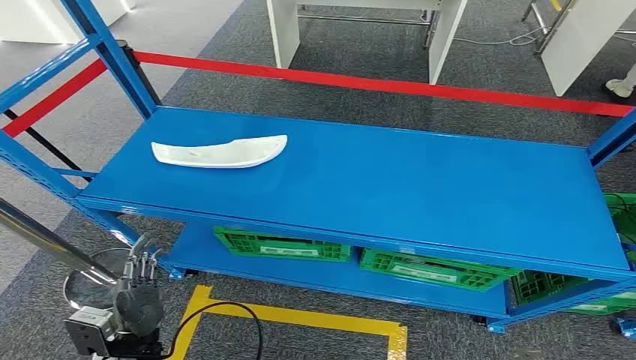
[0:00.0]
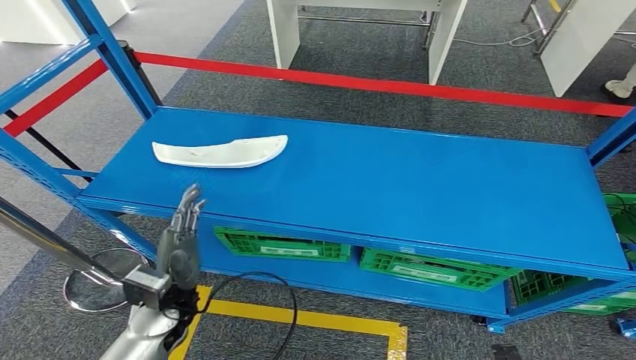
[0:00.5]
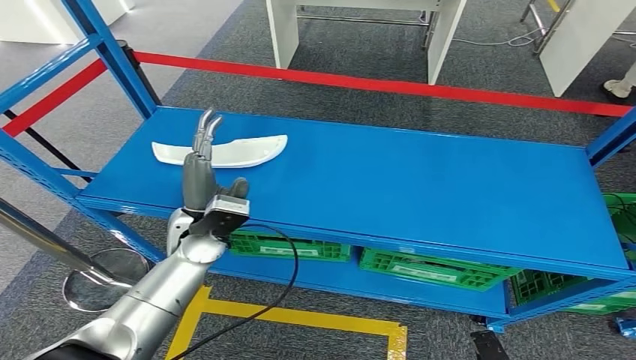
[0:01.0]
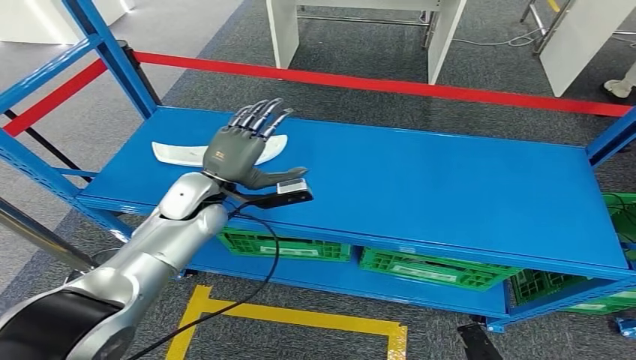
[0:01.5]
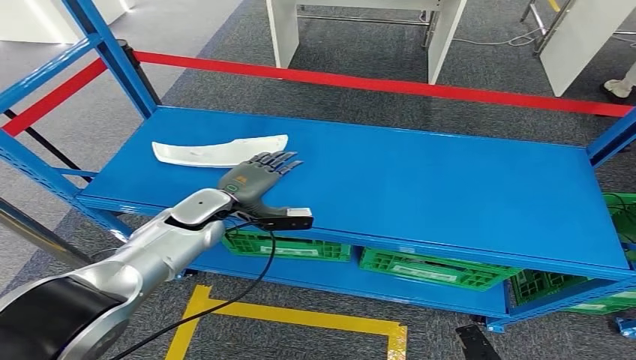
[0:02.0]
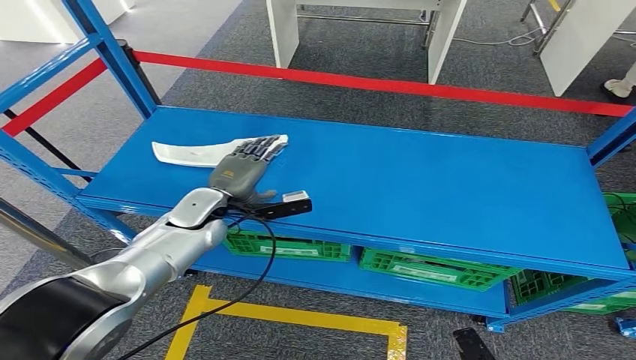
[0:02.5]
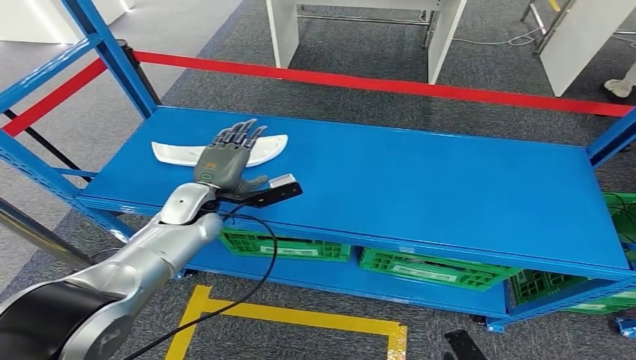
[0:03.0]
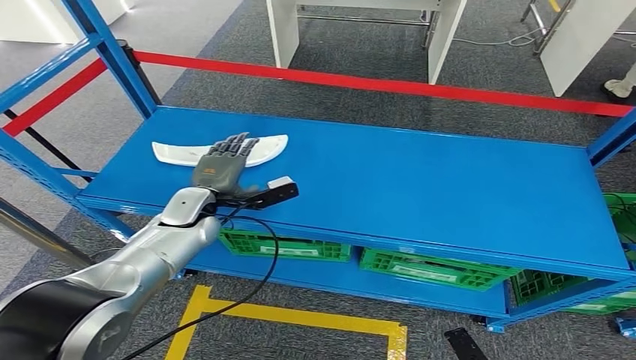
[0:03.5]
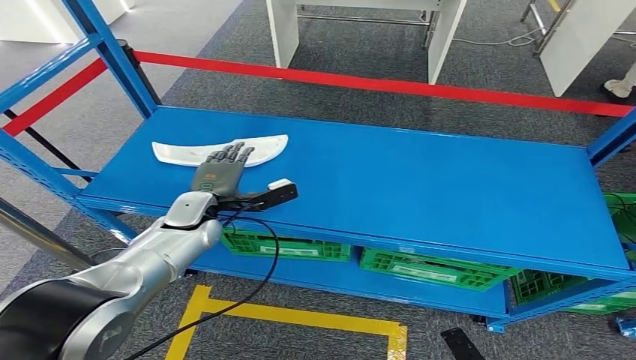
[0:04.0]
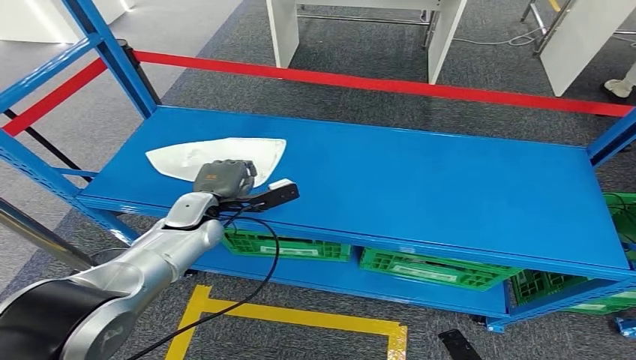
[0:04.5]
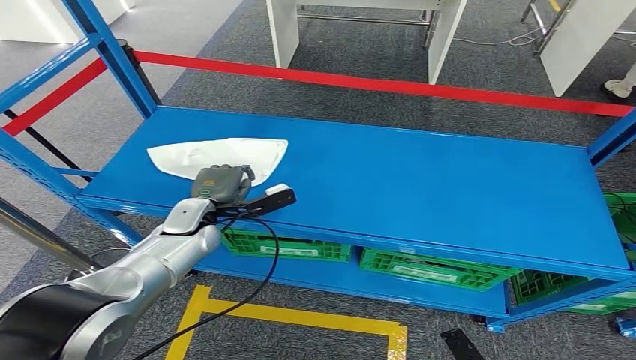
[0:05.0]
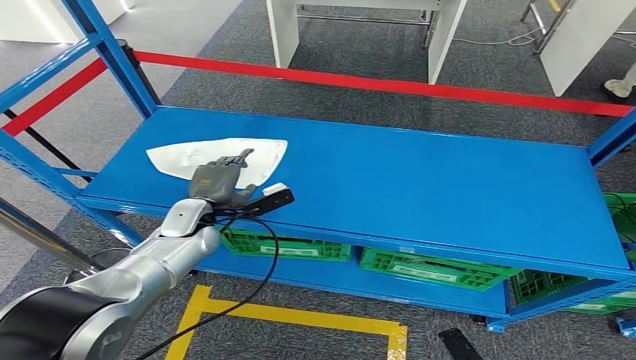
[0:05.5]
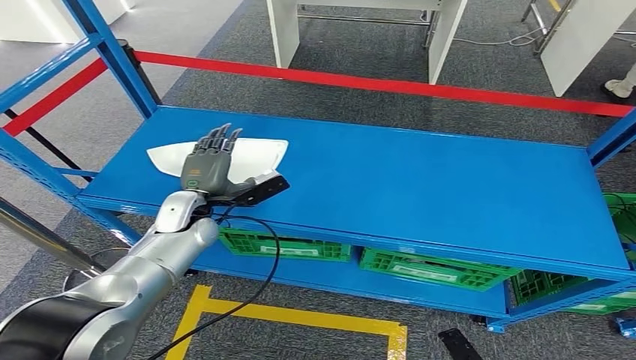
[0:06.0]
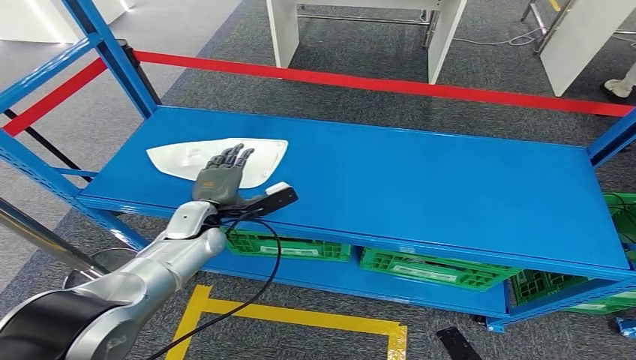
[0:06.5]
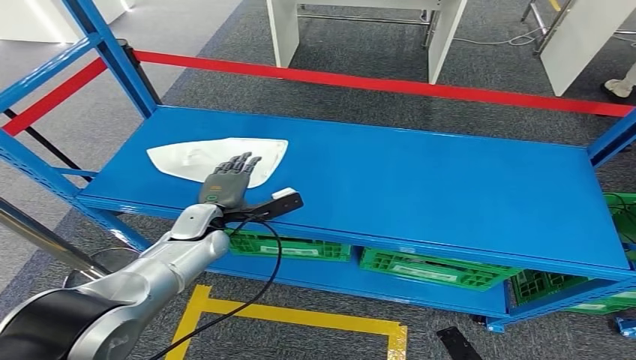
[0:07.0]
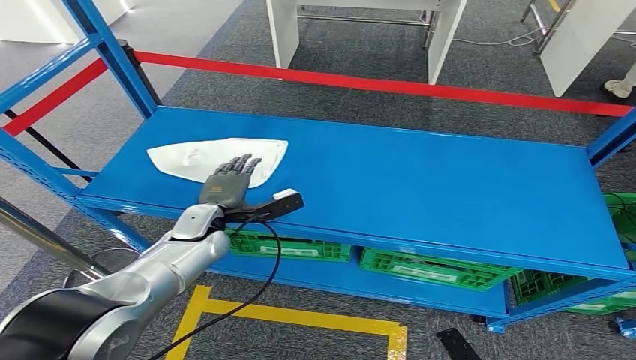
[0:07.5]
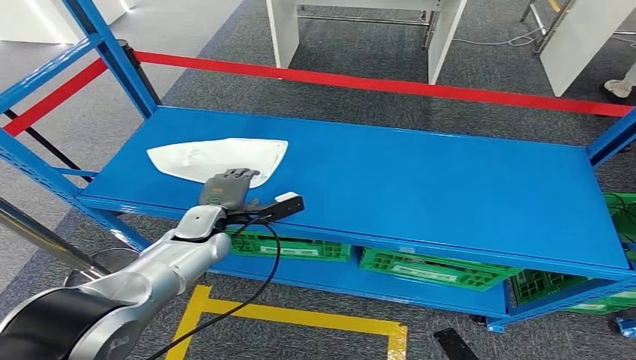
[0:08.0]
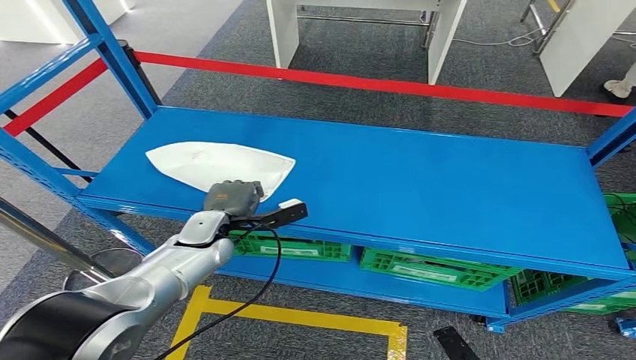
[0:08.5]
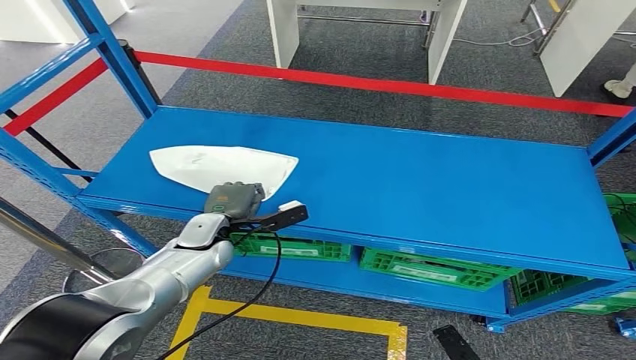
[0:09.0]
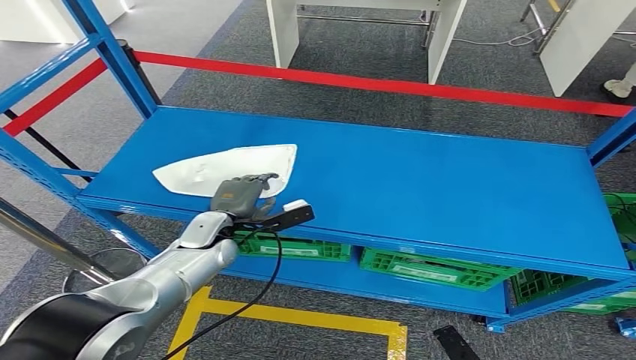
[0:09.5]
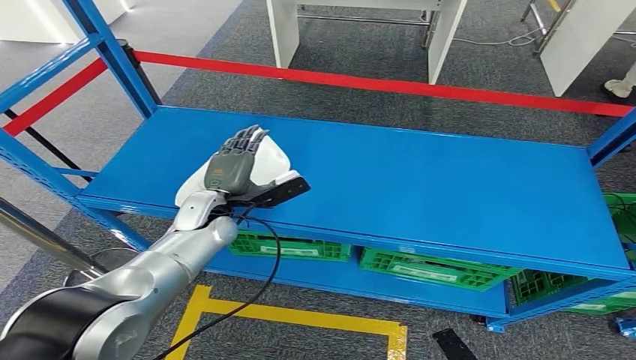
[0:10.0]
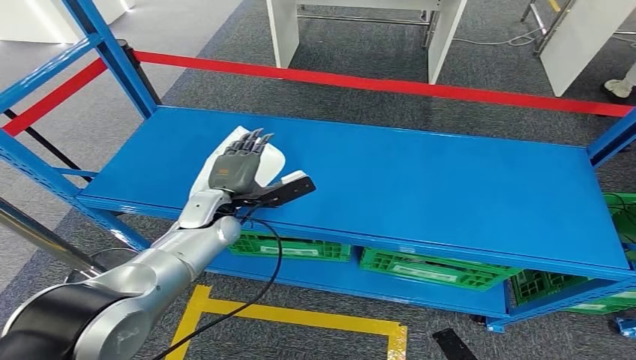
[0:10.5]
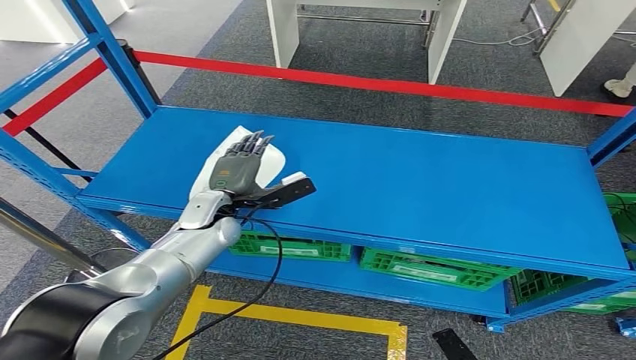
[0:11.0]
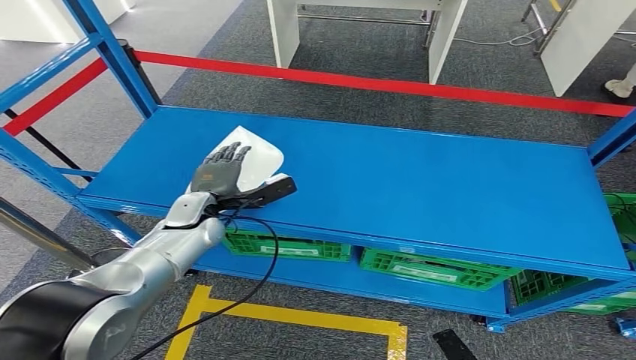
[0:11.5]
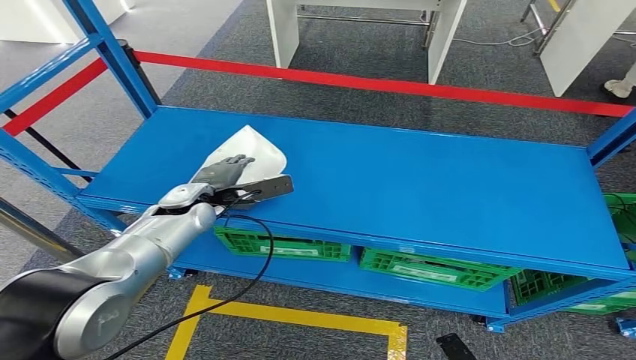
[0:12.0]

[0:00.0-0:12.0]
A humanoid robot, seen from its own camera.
0:04.0 to 0:06.0: The hands make only small movements.

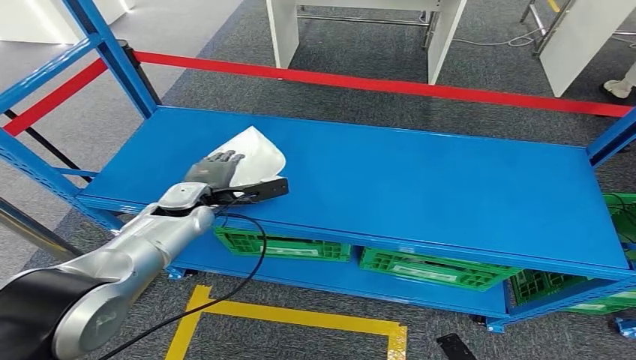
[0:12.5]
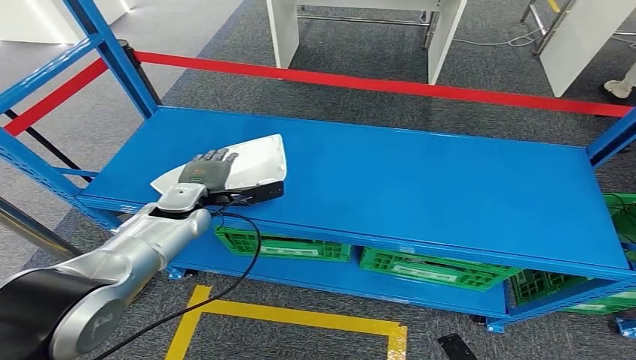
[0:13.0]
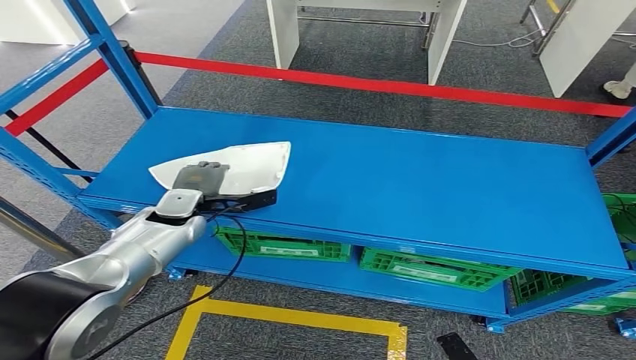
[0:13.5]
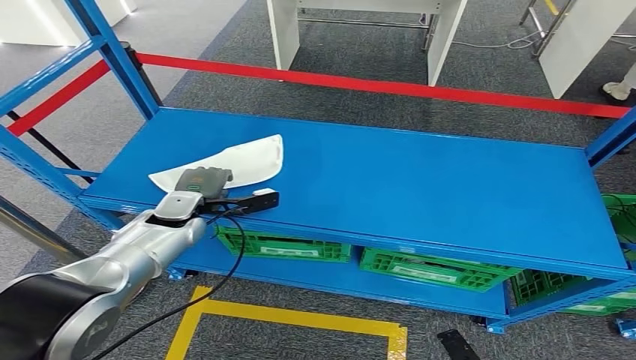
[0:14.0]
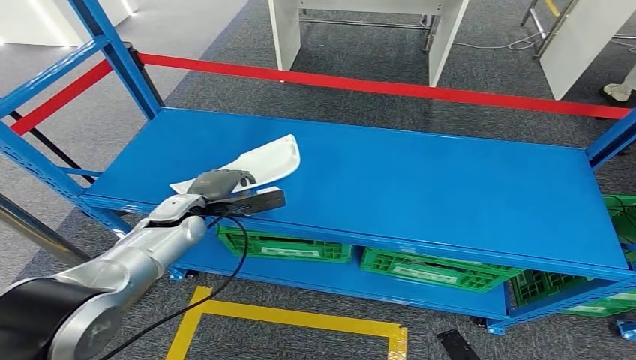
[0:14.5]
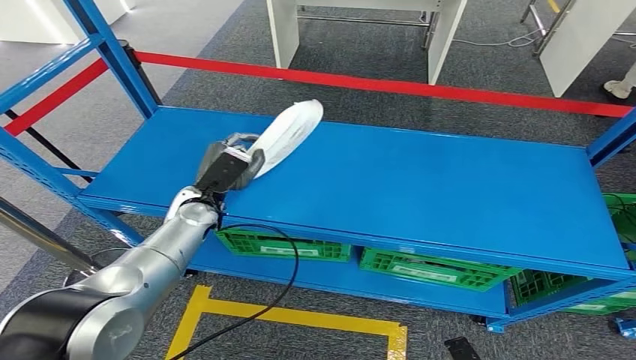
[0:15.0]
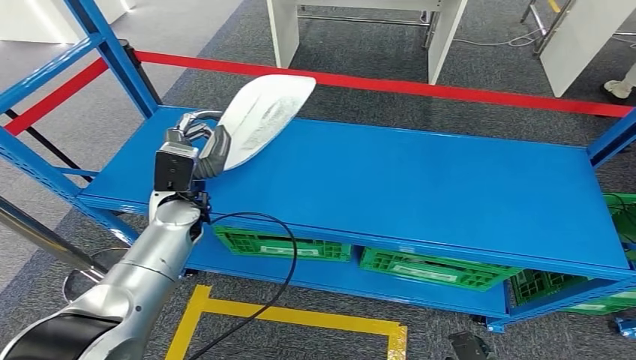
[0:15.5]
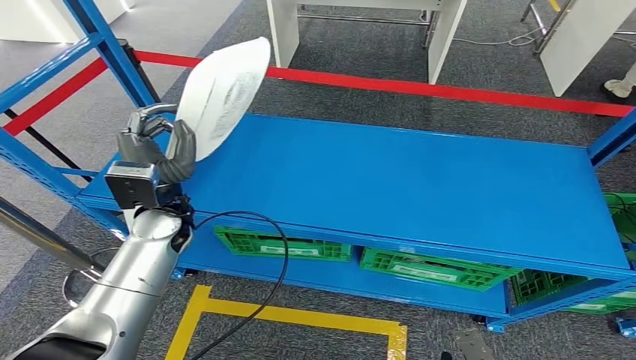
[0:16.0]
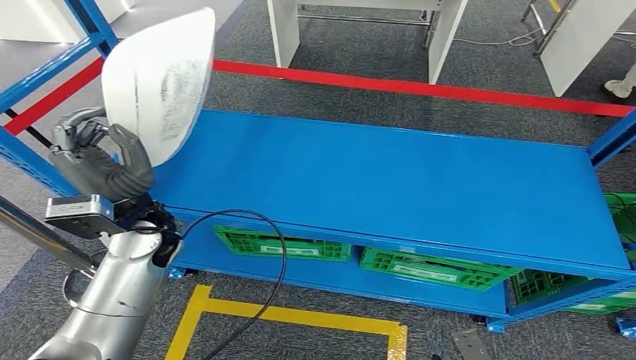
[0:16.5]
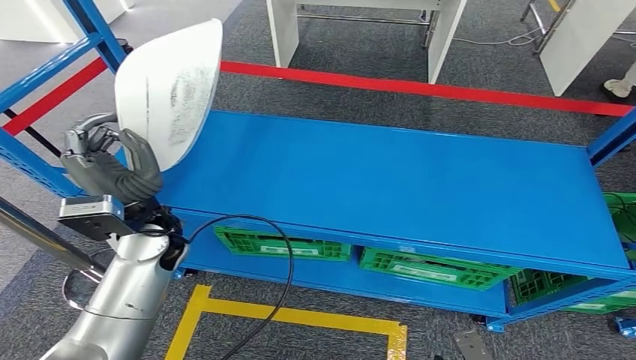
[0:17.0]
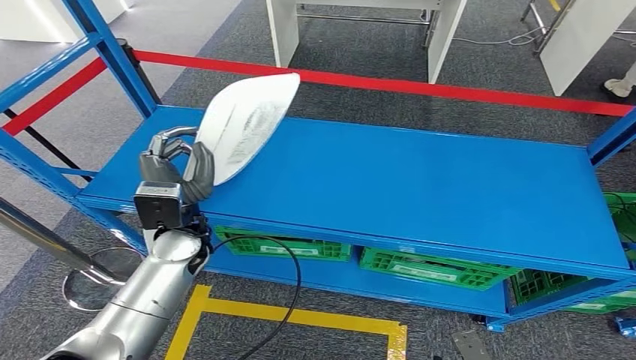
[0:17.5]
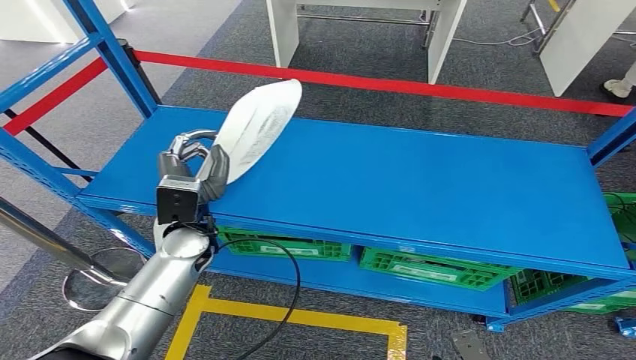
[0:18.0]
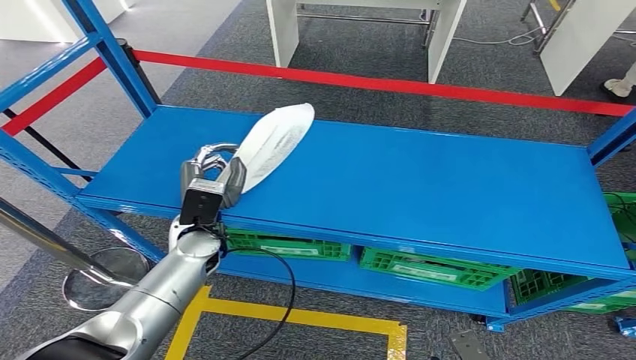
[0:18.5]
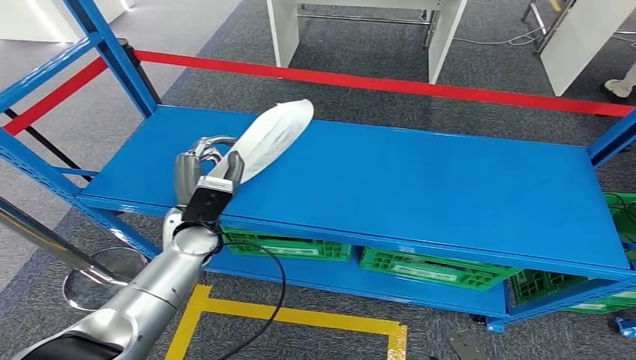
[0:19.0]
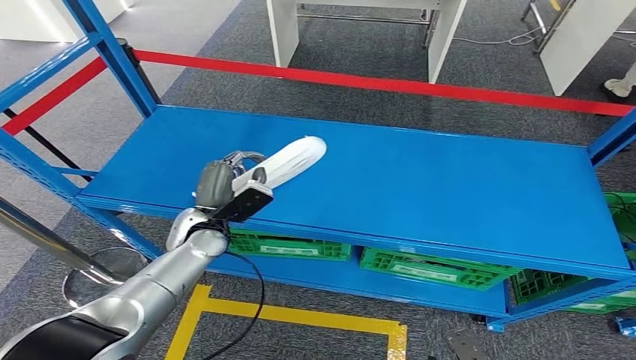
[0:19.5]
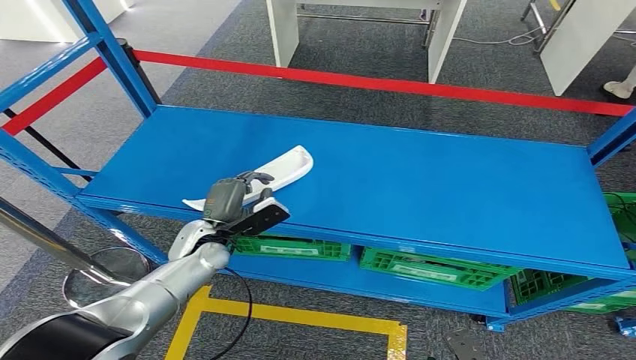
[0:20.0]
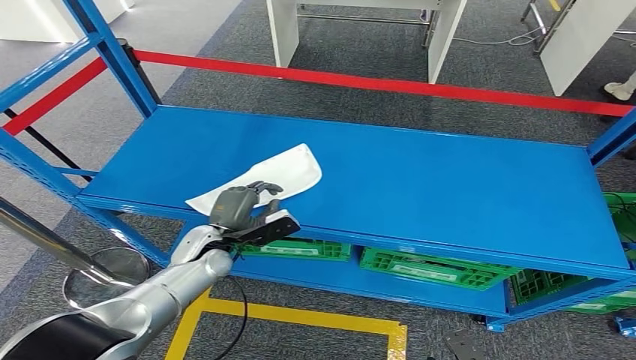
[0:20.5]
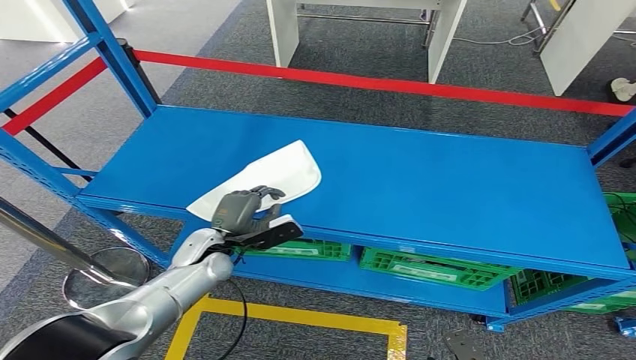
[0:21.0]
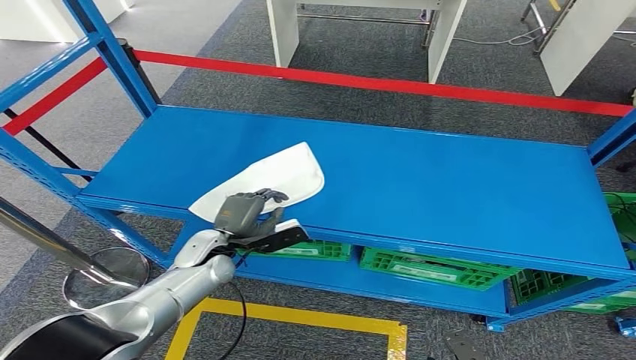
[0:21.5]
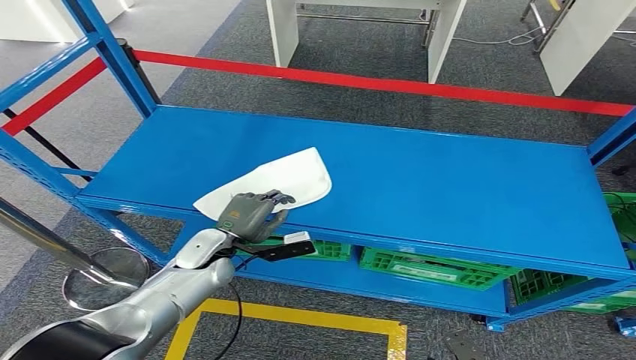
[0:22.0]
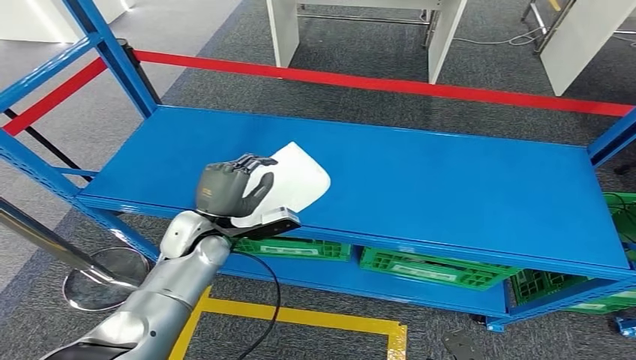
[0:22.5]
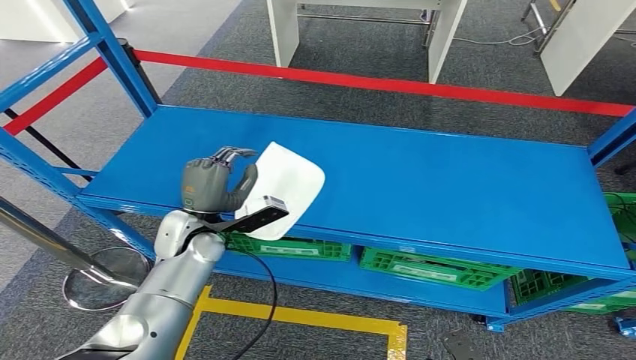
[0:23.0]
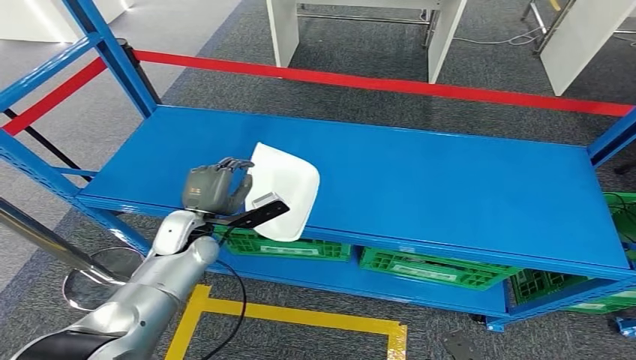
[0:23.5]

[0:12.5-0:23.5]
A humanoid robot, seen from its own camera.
Step, 0:12.5 to 0:19.0: Pick up the small component from the shelf.
0:12.5 to 0:14.5: The hands stay close to where they were, moving slightly.
0:16.0 to 0:18.0: The left hand moves approximately 5 cm.
0:18.0 to 0:20.0: The left hand moves downward, about 10 cm.
0:20.0 to 0:21.5: There are only small adjustments of the hands.
0:21.5 to 0:23.5: The left hand changes place by approximately 5 cm.
